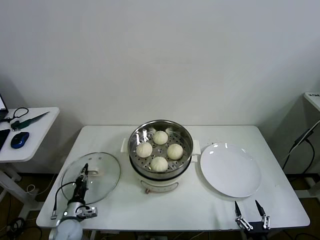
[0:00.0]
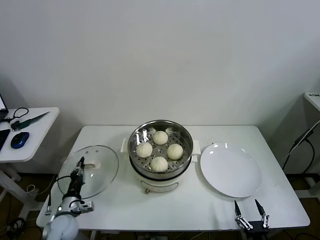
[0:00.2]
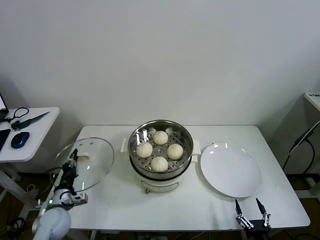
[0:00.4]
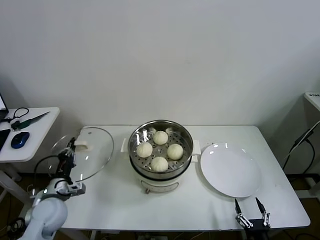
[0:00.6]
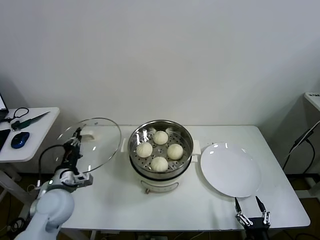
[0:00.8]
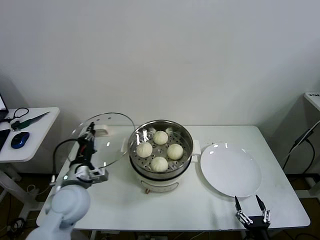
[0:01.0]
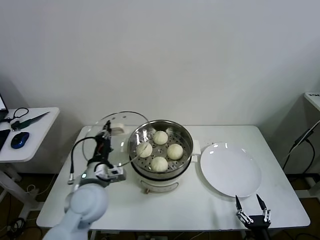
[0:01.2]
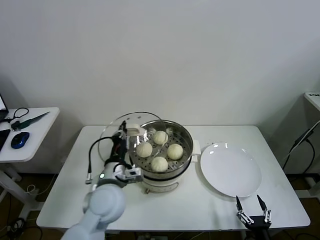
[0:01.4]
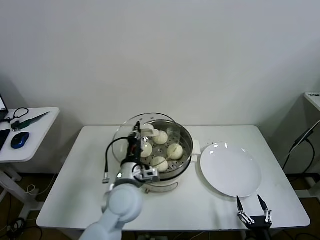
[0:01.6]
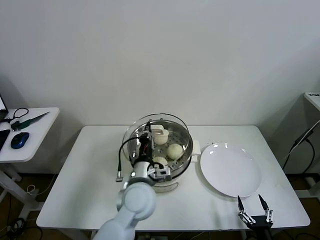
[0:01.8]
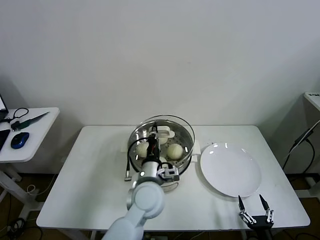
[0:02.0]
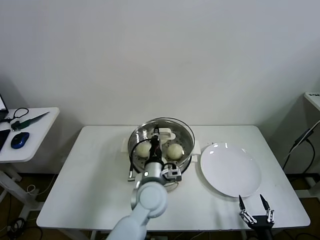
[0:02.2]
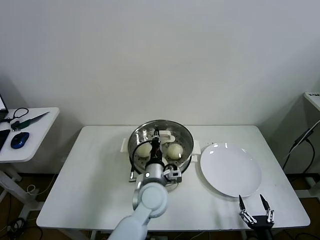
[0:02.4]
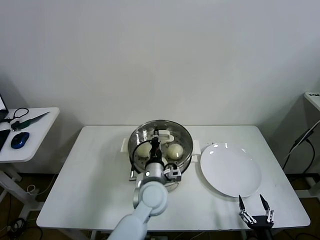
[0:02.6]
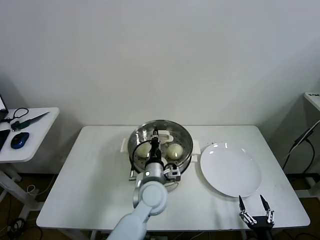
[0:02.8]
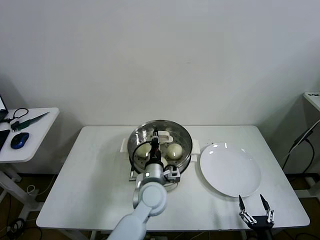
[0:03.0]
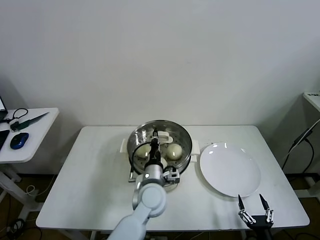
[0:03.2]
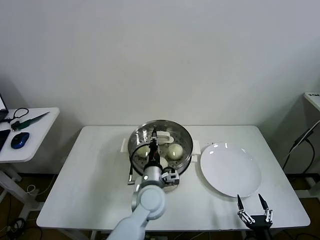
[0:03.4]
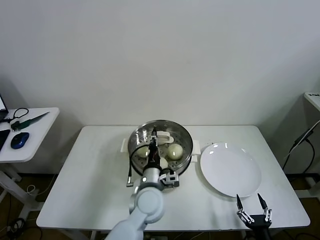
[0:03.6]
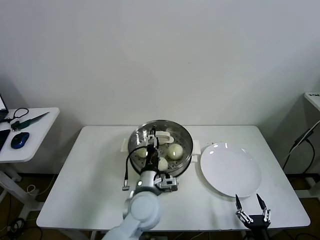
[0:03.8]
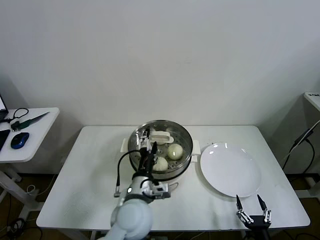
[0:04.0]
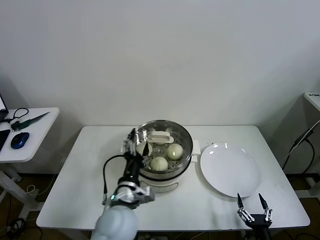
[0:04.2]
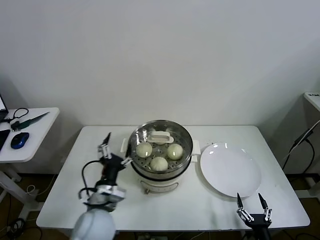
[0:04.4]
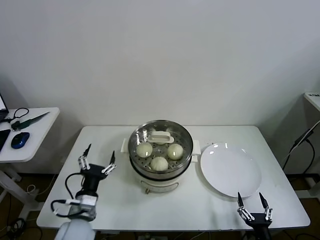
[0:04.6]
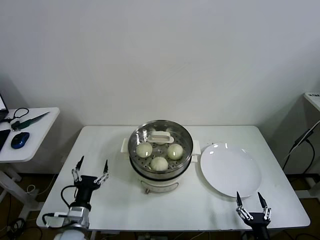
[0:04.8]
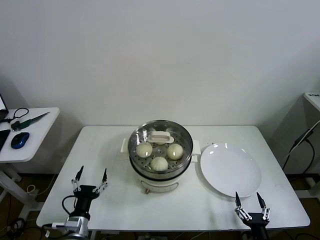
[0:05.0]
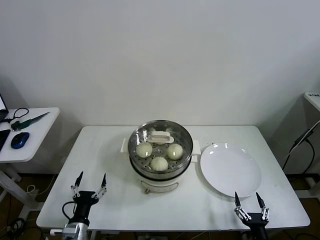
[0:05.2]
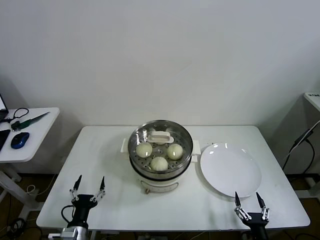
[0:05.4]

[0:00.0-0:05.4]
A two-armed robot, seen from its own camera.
Task of the whole recording: take steamed baozi put them in steamer then cover it.
Step, 0:00.0 to 0:04.0: Place the pot lid on the steamer with left gripper.
0:00.0 to 0:01.4: The left gripper is displaced upward and to the right by about 30 cm.
0:01.4 to 0:02.8: The left gripper travels to the right and downward by some 15 cm.
0:02.8 to 0:04.0: The left gripper shifts roughly 5 cm backward, and opens its fingers.
0:04.0 to 0:05.4: The left gripper travels to the left, downward and backward by approximately 30 cm.
